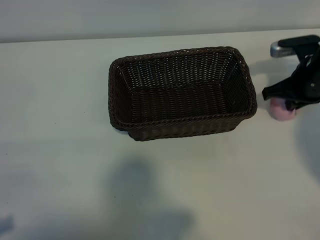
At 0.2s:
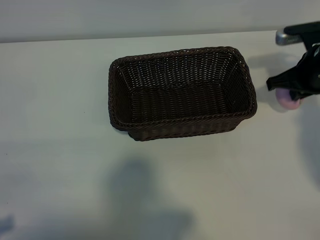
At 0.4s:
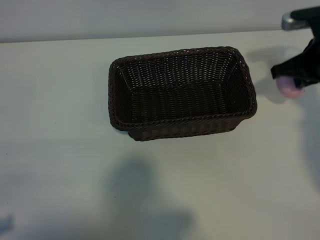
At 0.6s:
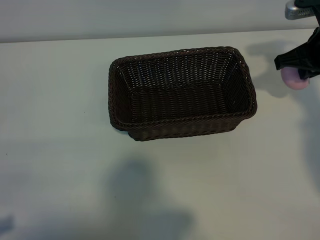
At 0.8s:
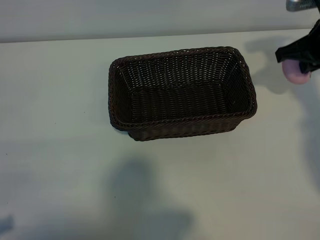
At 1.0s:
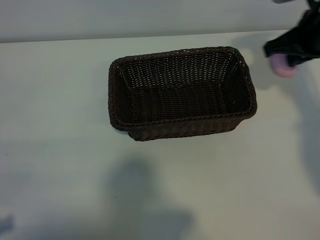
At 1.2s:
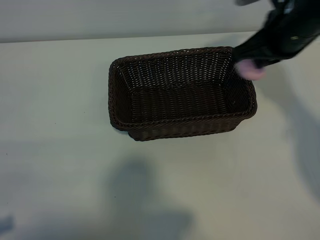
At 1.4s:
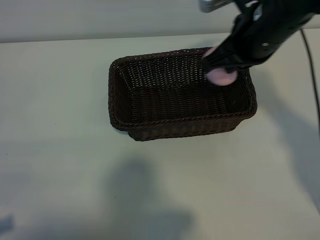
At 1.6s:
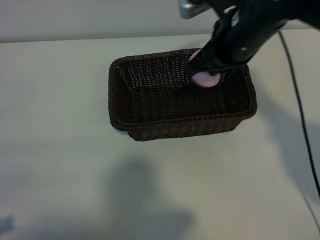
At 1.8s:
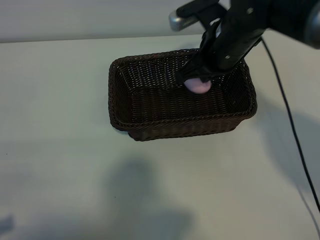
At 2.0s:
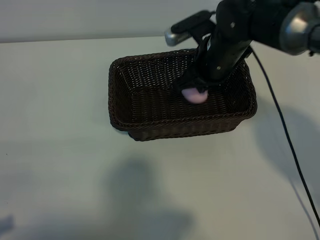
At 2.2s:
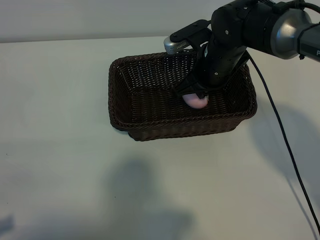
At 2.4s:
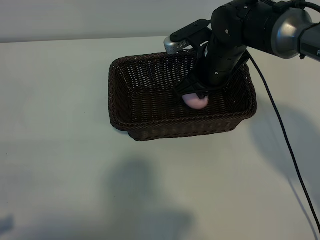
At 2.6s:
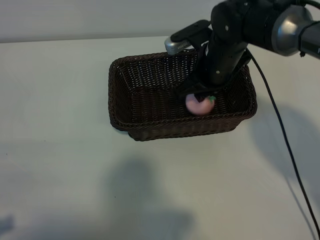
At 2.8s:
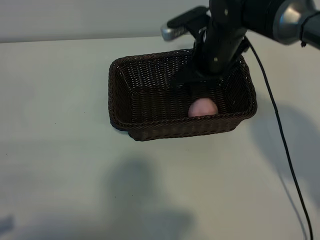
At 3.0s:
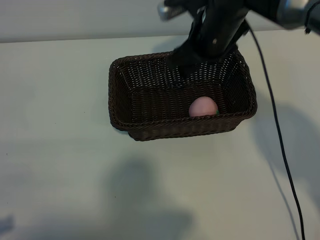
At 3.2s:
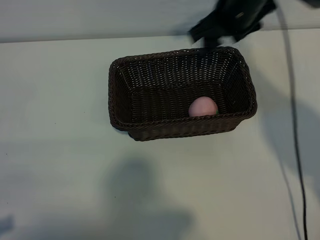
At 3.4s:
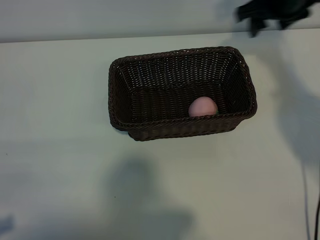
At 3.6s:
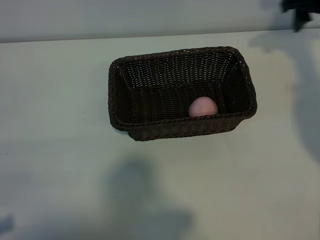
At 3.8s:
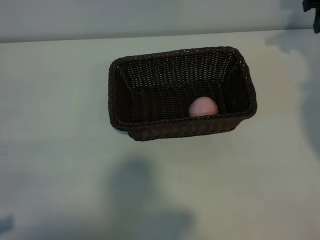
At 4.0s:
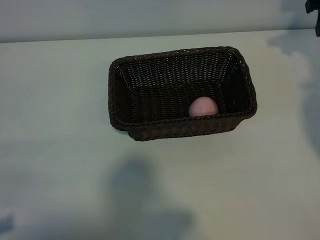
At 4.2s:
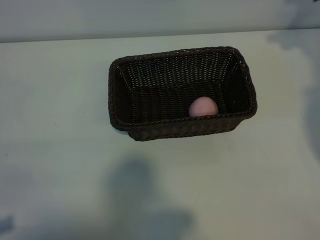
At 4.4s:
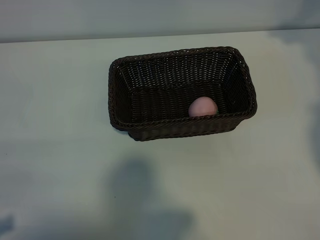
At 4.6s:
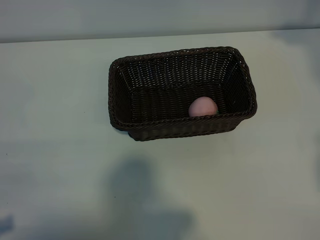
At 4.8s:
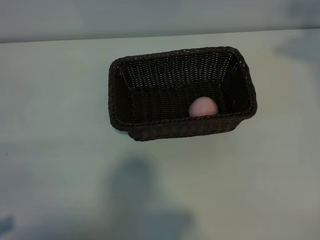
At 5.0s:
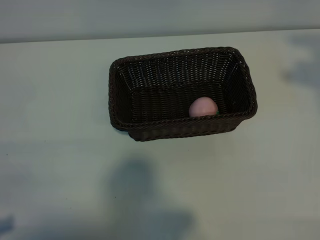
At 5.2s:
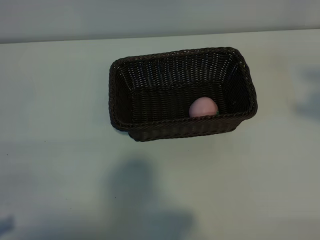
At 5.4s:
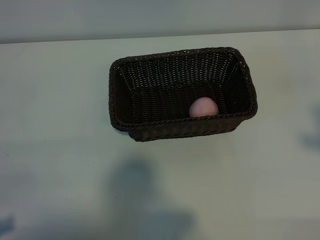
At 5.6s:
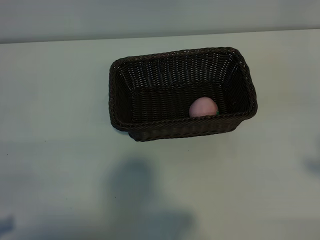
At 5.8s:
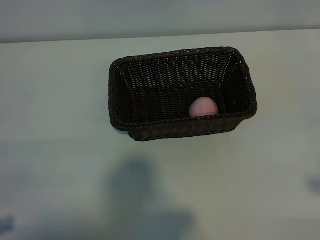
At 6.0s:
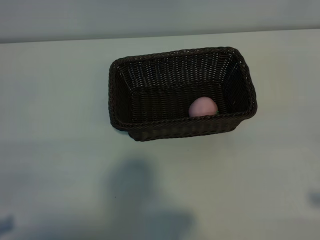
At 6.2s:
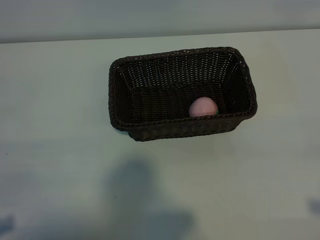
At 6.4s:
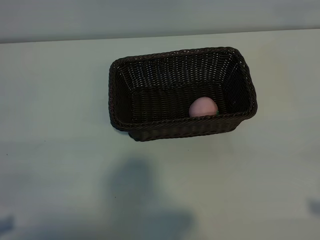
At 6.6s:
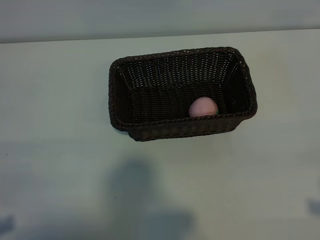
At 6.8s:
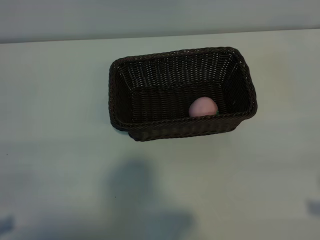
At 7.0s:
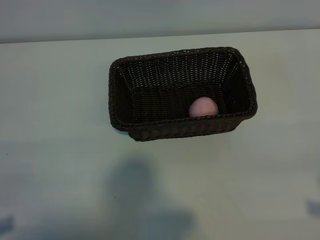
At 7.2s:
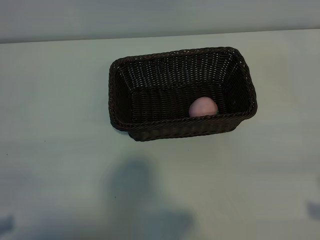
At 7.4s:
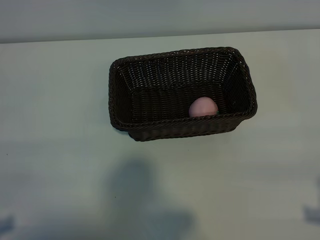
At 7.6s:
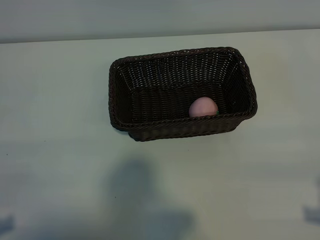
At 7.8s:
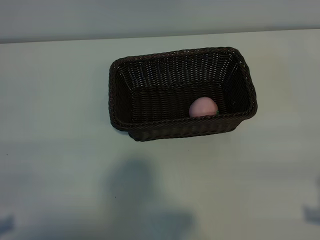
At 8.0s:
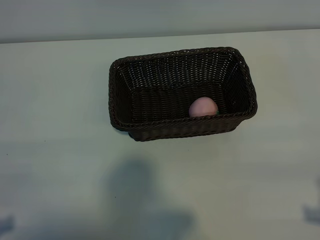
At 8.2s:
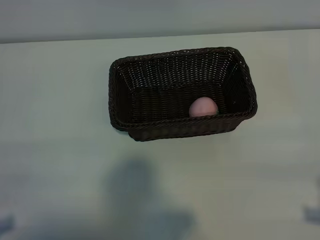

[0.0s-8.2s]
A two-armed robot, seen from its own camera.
Task of the whole recording: pick up the peach and put it into the basket.
Step, 0.0s to 2.6s: Place the peach in the basket with right gripper.

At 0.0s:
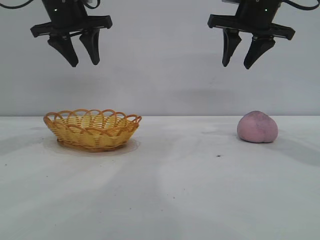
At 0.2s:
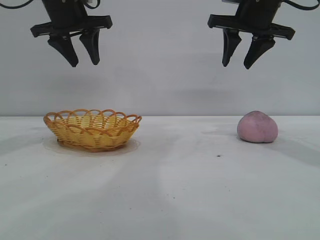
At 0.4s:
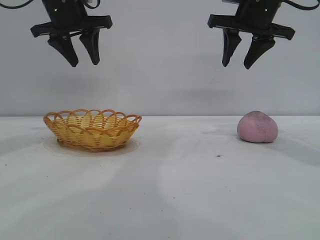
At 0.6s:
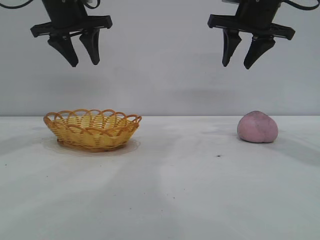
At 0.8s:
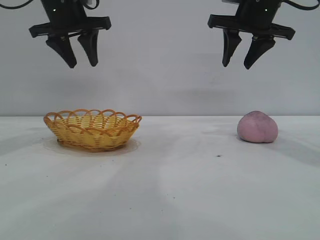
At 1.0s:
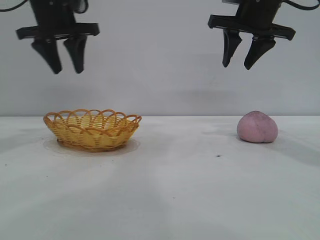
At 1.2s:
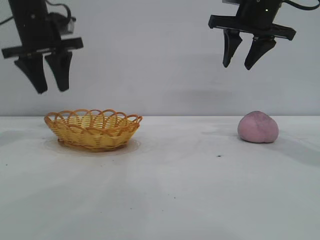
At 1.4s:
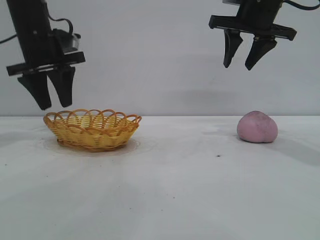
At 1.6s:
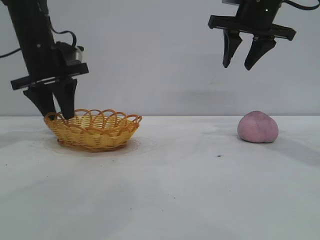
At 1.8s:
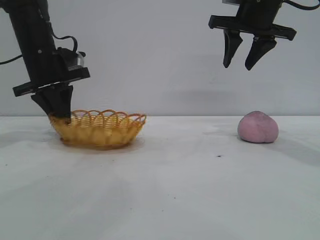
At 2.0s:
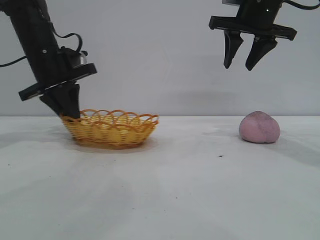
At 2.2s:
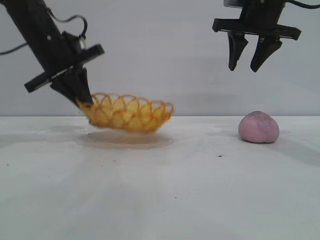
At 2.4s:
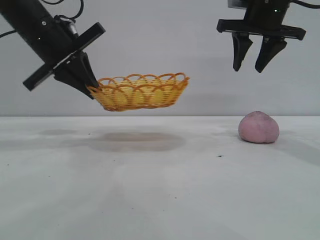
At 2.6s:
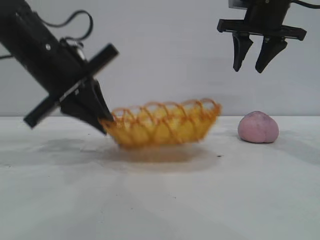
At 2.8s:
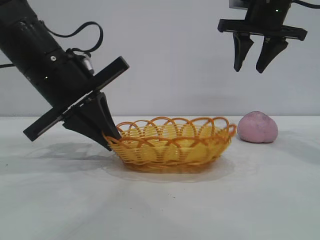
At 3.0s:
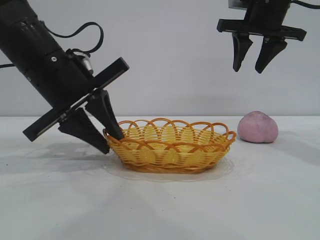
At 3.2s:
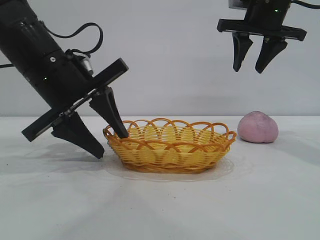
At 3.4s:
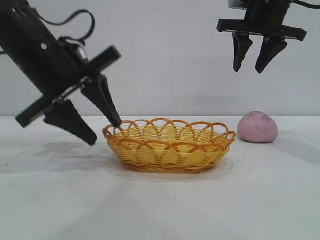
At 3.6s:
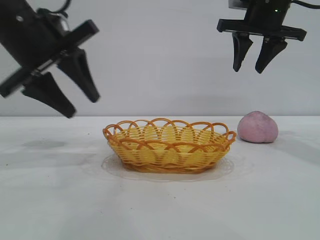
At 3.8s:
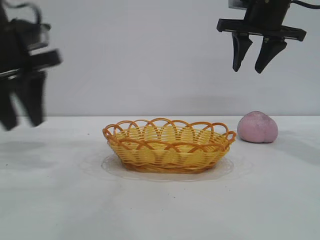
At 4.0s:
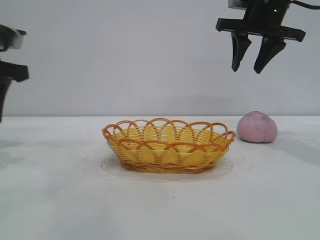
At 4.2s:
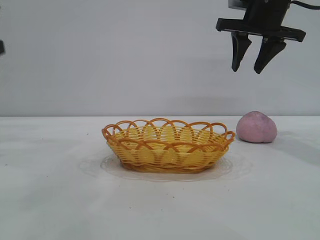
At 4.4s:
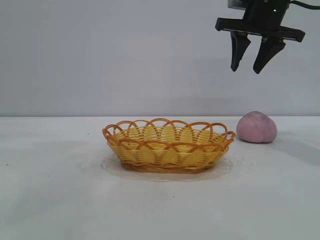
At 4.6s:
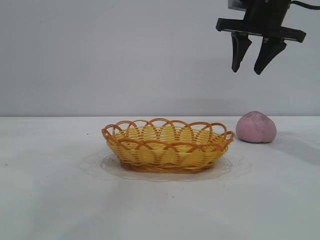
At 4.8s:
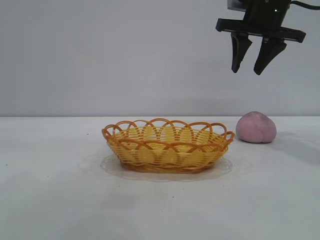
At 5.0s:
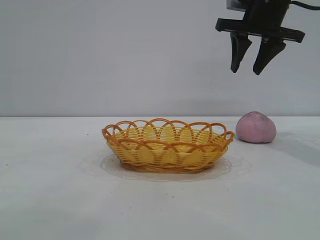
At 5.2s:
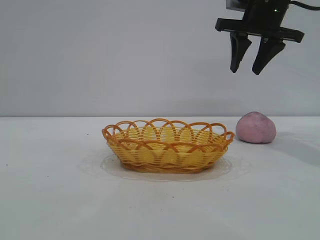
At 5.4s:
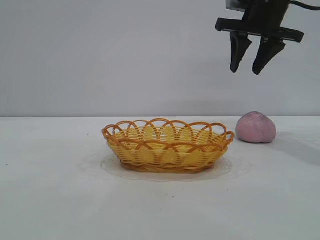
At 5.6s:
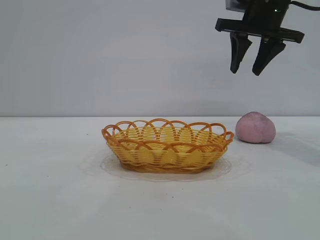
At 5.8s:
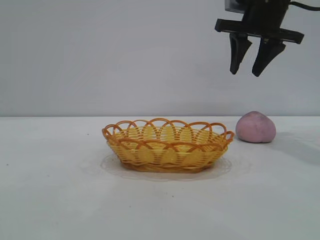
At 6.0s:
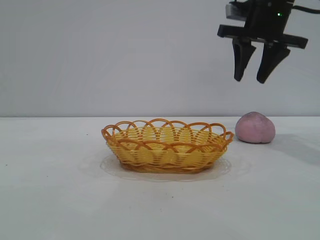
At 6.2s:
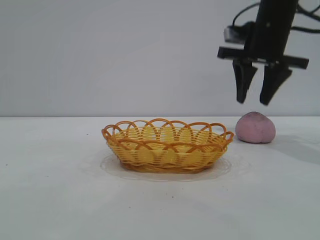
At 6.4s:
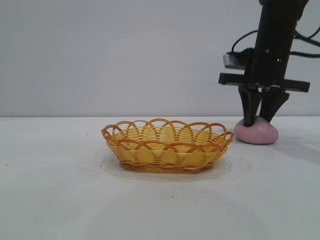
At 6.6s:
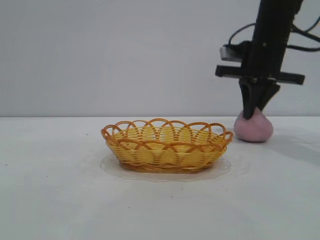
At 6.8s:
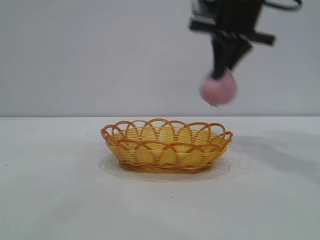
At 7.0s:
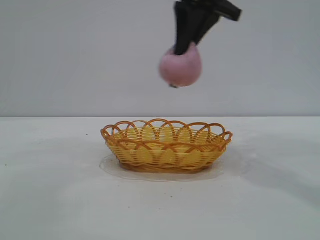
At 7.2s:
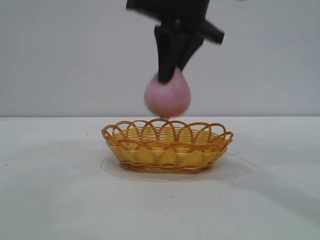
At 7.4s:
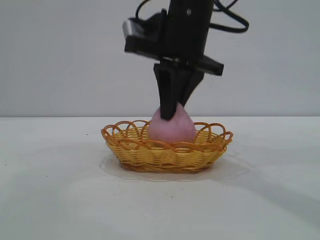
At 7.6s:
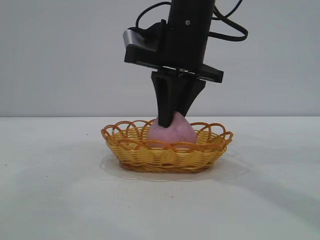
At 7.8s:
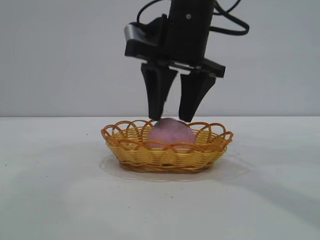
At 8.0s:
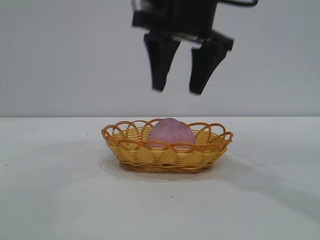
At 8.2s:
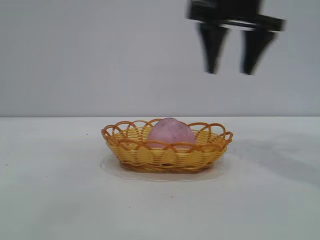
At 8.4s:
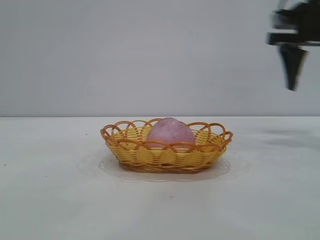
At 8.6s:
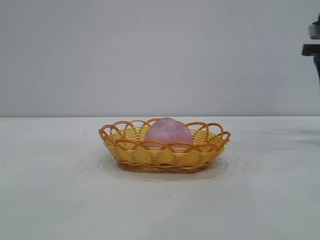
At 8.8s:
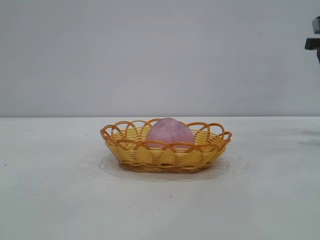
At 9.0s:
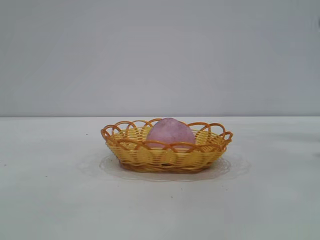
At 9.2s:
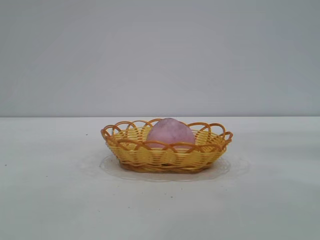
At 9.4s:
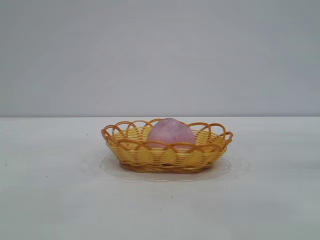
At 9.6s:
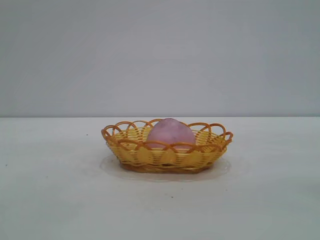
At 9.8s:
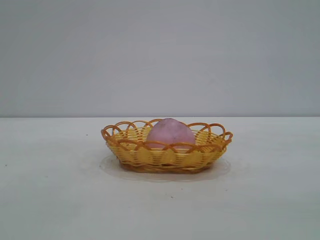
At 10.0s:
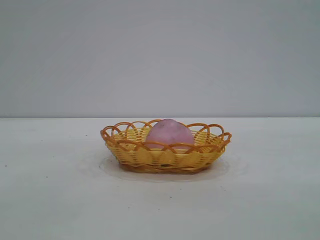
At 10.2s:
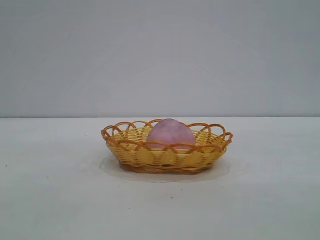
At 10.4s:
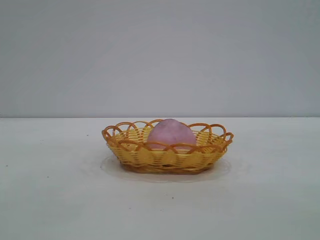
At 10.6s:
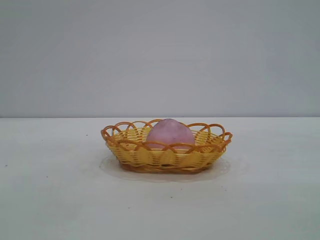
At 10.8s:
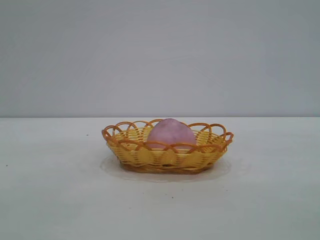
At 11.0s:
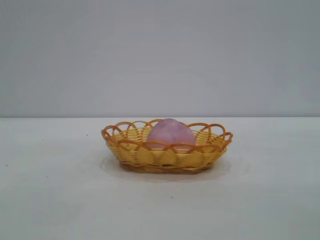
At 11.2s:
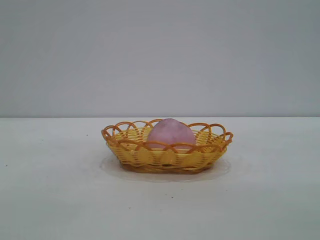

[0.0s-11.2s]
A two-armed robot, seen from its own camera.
Task of the whole recording: pick up the peach and put it into the basket.
Step, 0.0s to 3.4s: Move the basket to the center of view.
Step, 3.6s to 6.6s: Pick up the peach.
Step, 6.8s to 8.0s: place the peach into the basket.

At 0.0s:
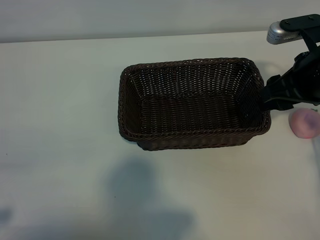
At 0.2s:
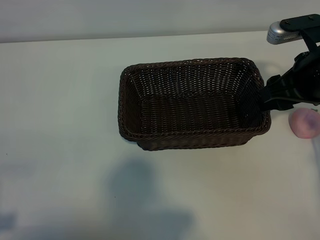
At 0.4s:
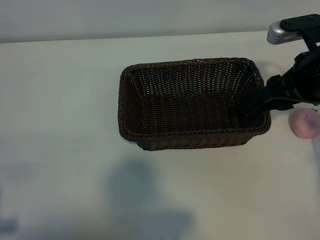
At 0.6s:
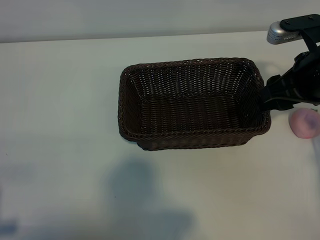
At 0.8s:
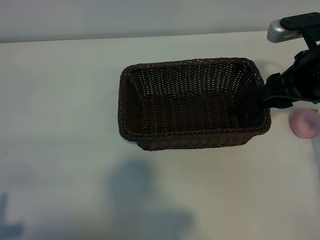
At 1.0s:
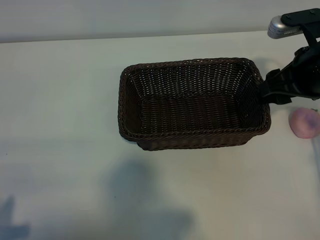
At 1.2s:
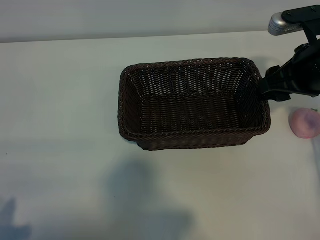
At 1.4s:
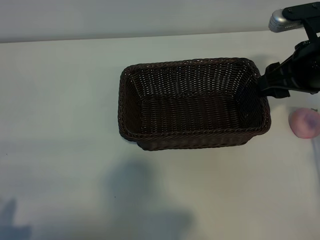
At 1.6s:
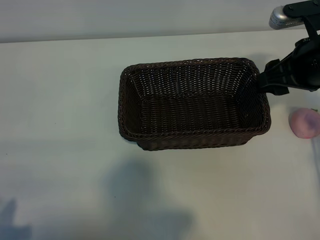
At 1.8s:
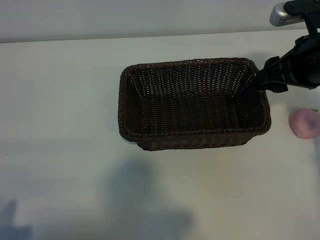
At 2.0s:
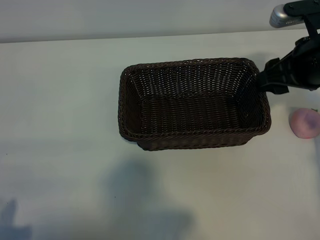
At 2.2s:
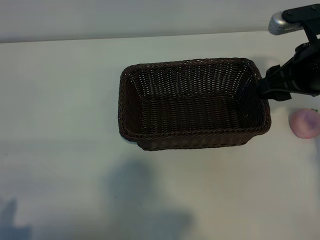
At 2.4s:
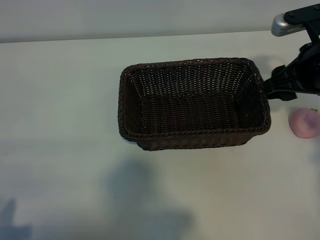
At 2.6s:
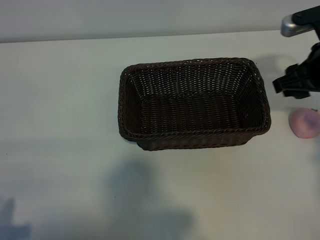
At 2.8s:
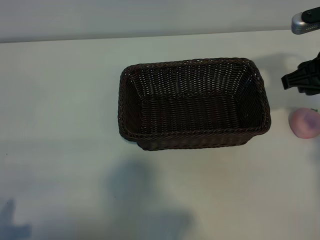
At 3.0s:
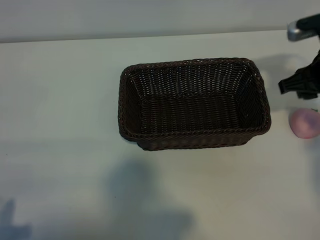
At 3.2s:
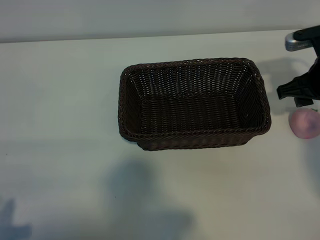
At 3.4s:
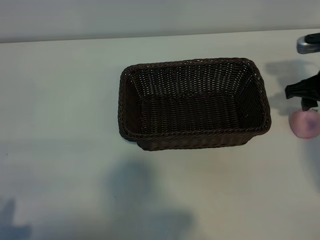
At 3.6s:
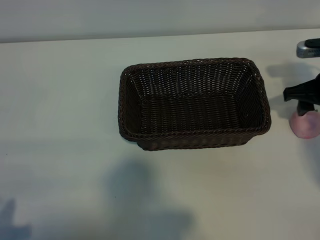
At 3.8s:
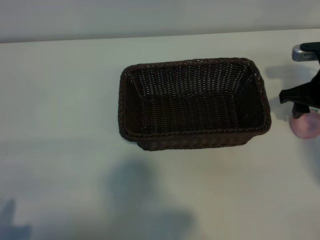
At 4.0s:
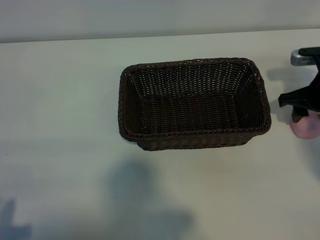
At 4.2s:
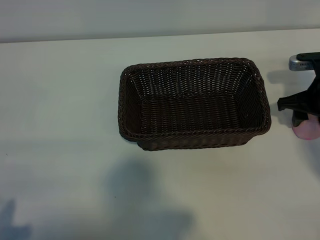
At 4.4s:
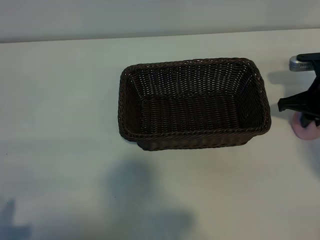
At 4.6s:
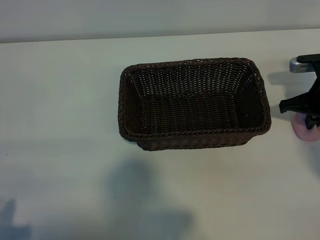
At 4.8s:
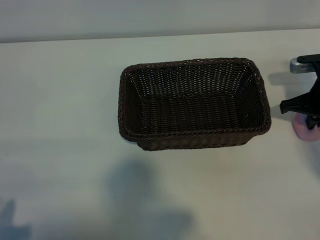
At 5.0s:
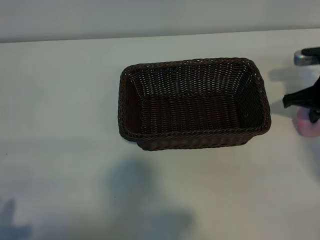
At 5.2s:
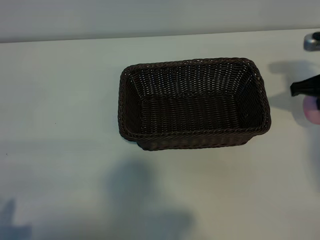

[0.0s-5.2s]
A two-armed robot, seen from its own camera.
Task of the whole recording: pick up the peach and put it into the basket.
Step, 0.0s to 4.6s: Grasp the peach with right gripper.
